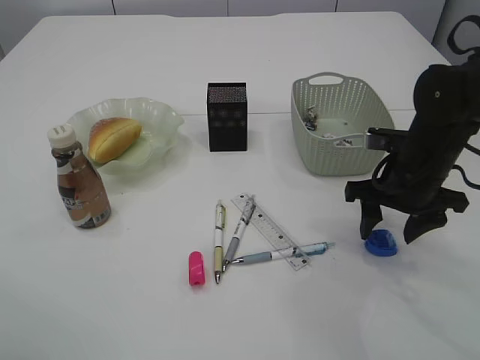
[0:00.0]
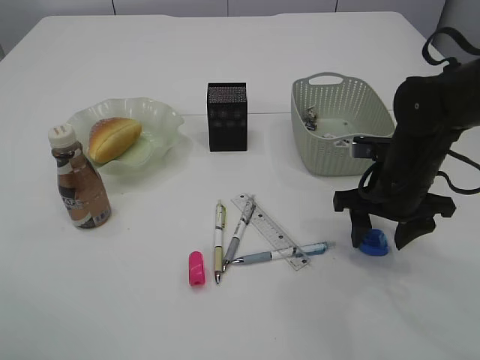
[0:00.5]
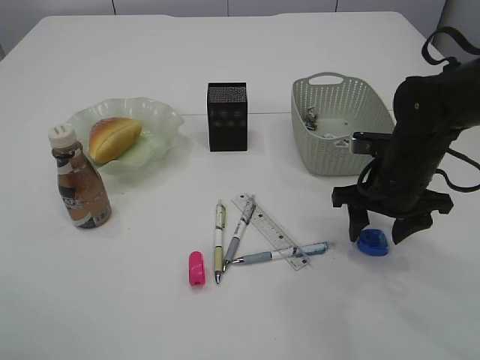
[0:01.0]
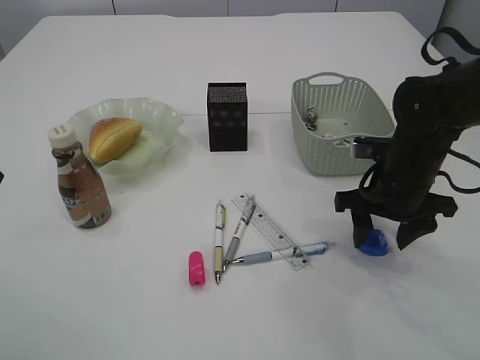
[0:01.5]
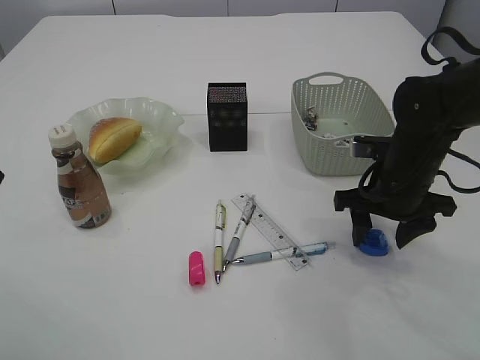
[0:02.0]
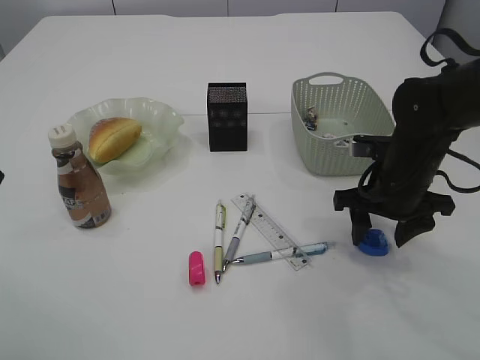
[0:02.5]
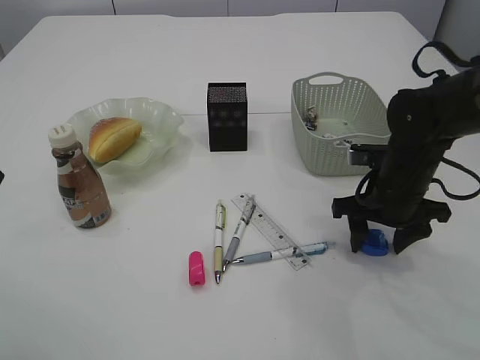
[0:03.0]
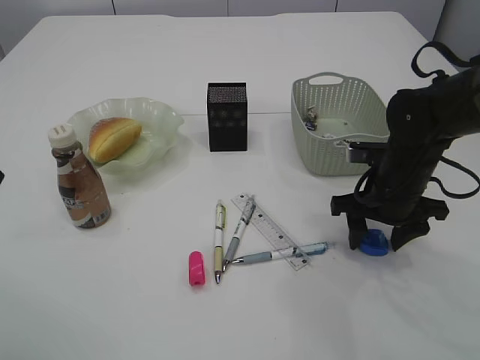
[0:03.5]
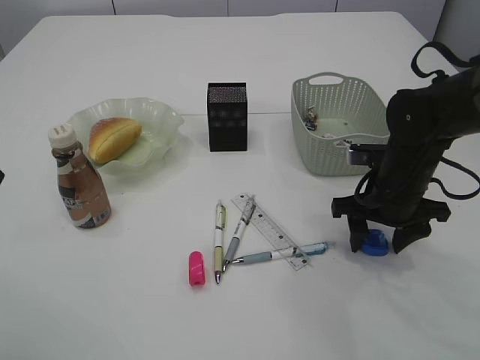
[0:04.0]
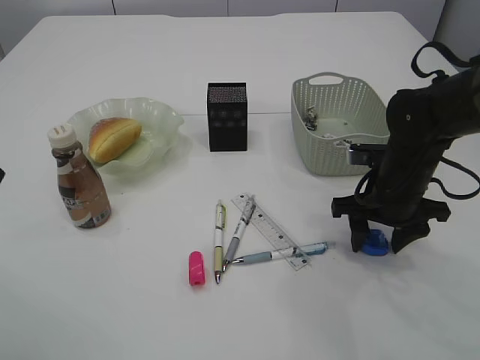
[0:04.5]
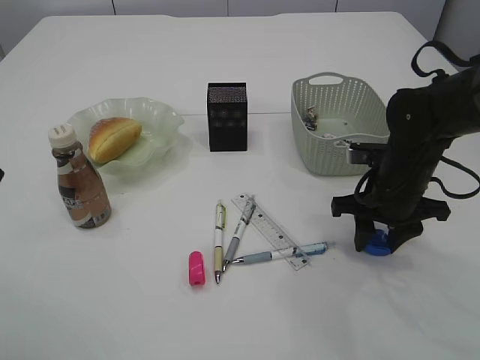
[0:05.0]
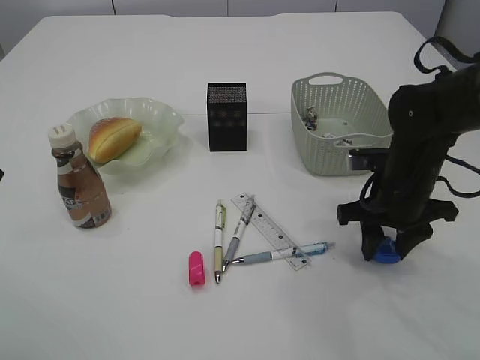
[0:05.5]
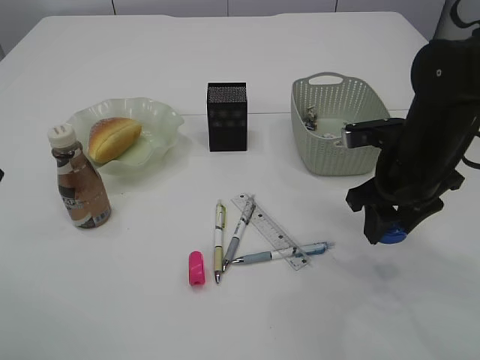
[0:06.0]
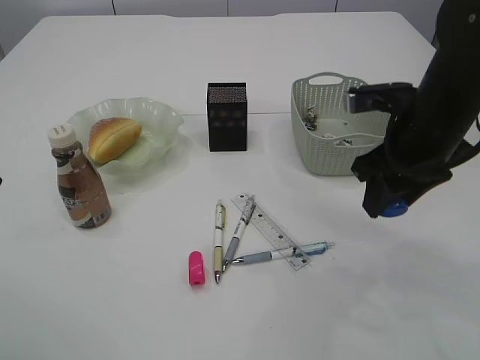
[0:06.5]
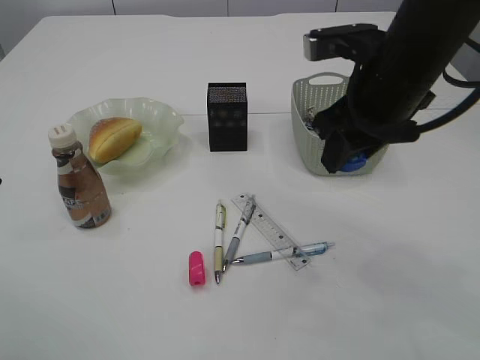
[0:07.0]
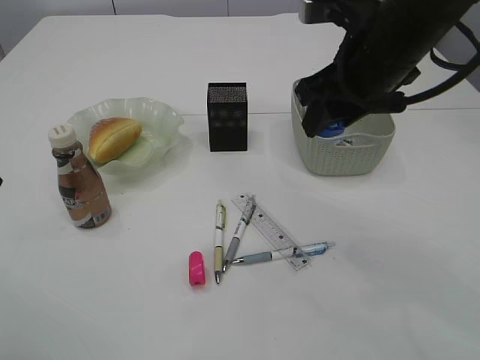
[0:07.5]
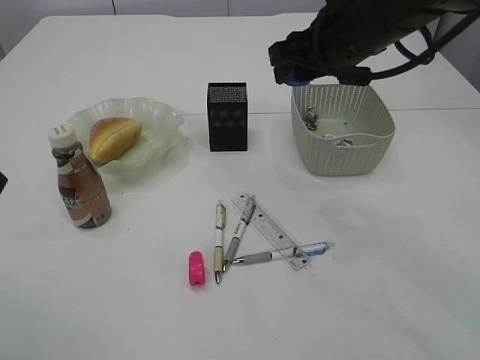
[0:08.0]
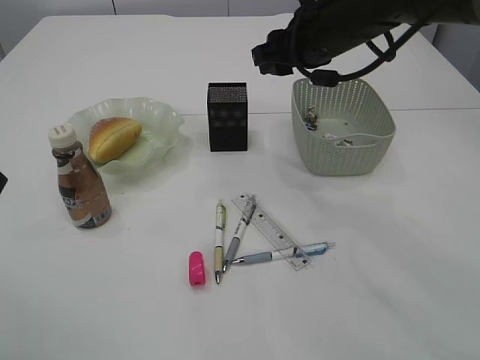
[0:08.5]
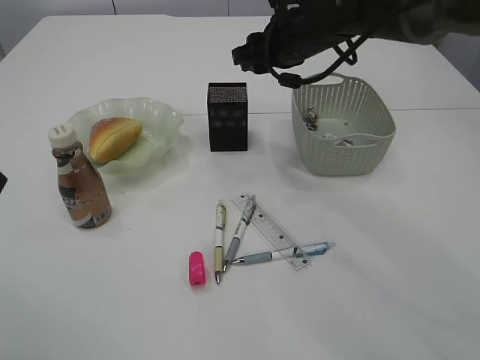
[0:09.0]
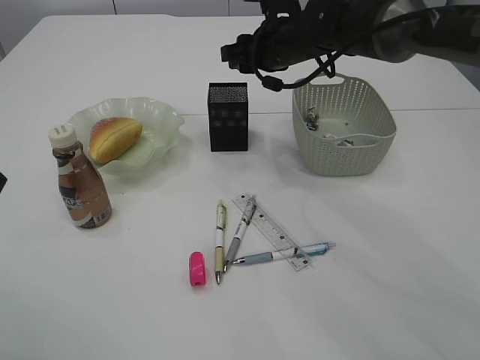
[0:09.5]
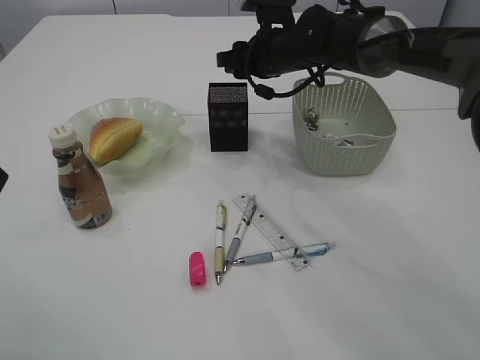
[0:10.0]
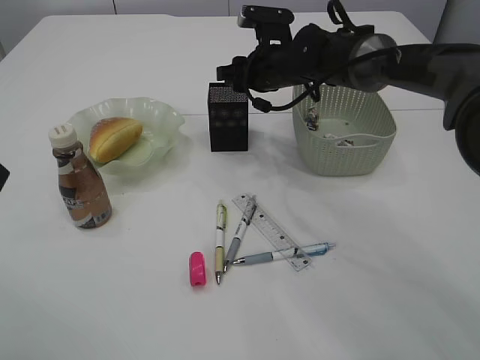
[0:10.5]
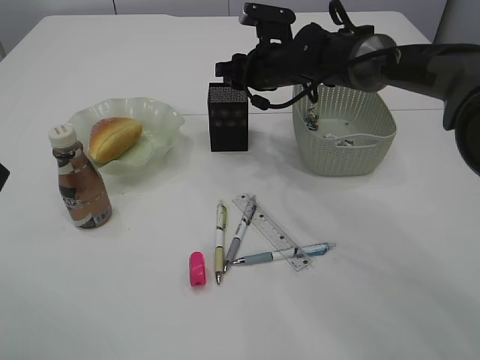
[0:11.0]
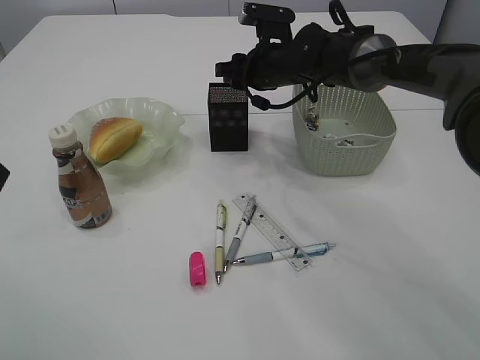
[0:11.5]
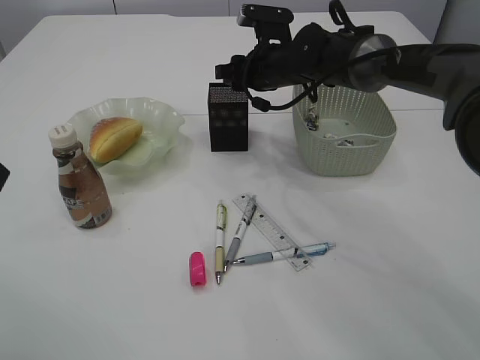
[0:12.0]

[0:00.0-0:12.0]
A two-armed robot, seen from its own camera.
Step, 0.0 to 6.0 s: Pick up the blue pencil sharpener.
0.0 to 4.0 s: There are only small adjustments of the grippers.
4.0 to 6.0 s: The right gripper goes roughly 5 cm upward.
6.0 to 8.0 s: The right gripper travels upward and to the left by about 15 cm.
8.0 to 10.0 s: The right gripper shifts roughly 15 cm forward and downward.
10.0 to 12.0 s: The grippers move only a little.

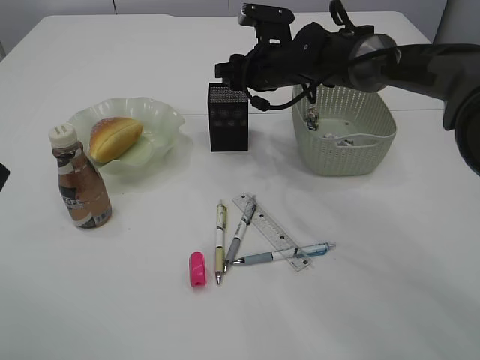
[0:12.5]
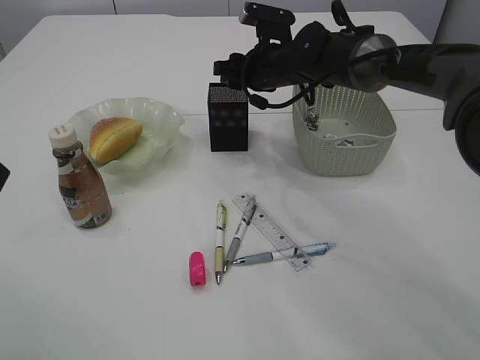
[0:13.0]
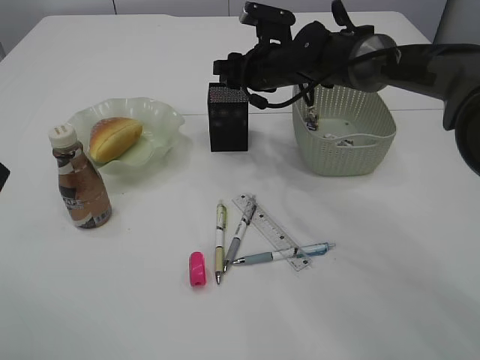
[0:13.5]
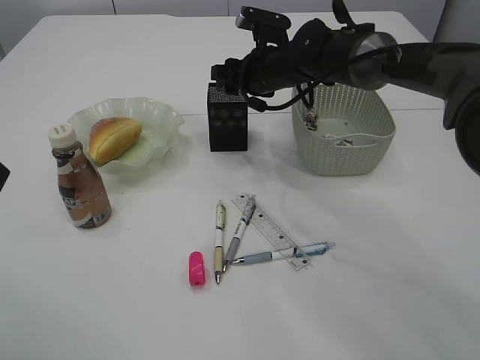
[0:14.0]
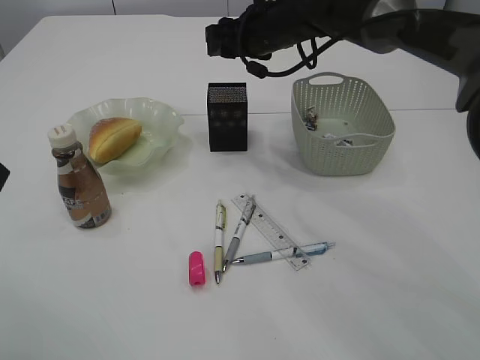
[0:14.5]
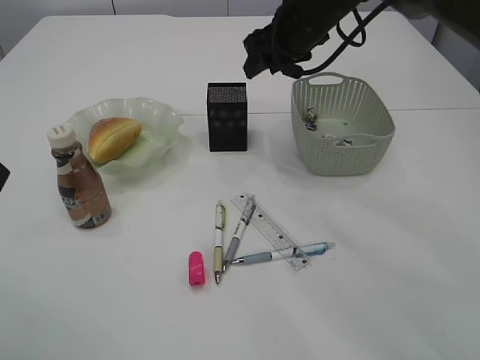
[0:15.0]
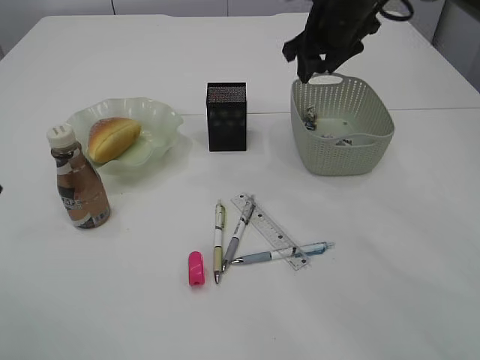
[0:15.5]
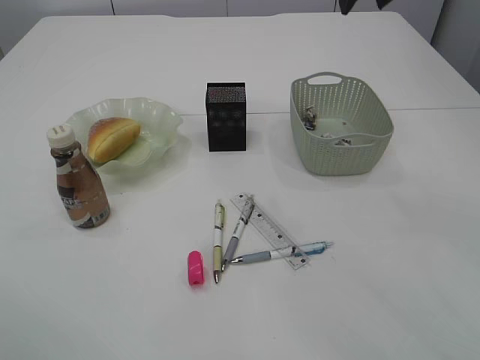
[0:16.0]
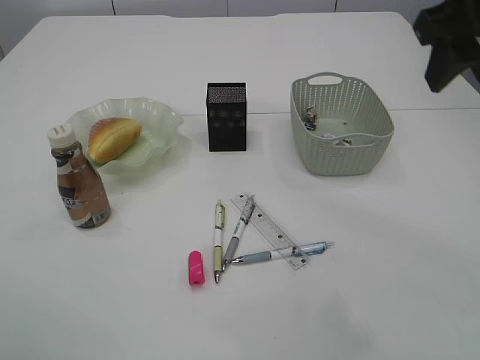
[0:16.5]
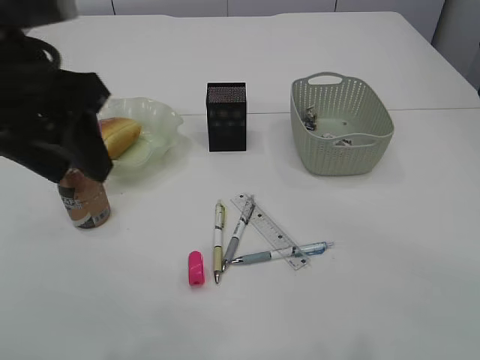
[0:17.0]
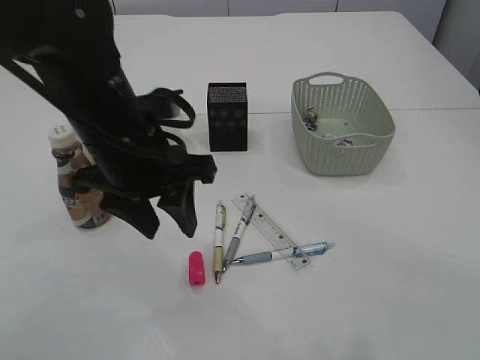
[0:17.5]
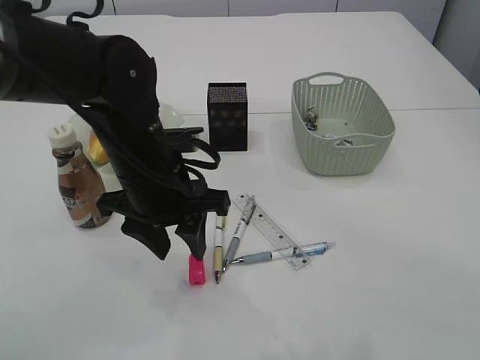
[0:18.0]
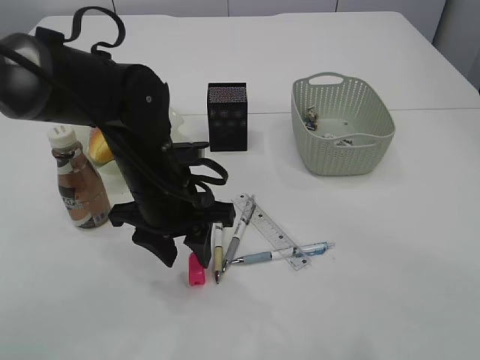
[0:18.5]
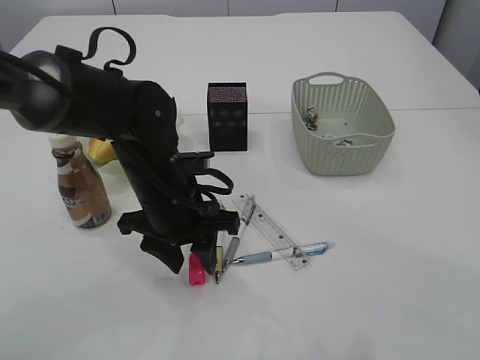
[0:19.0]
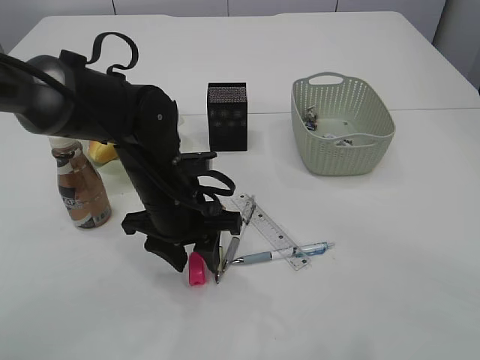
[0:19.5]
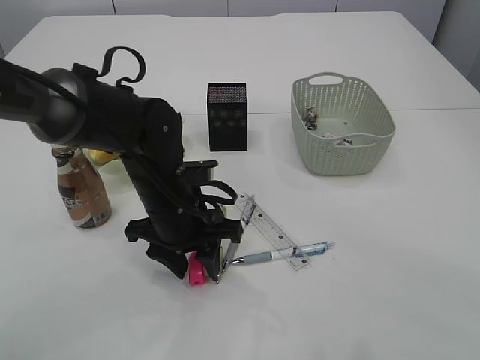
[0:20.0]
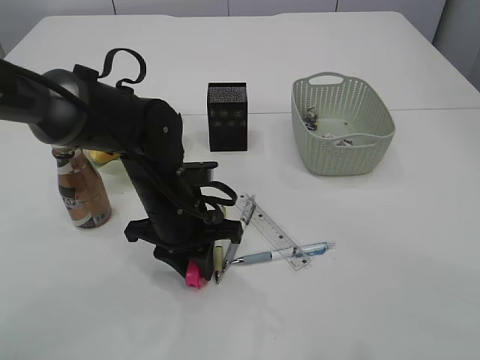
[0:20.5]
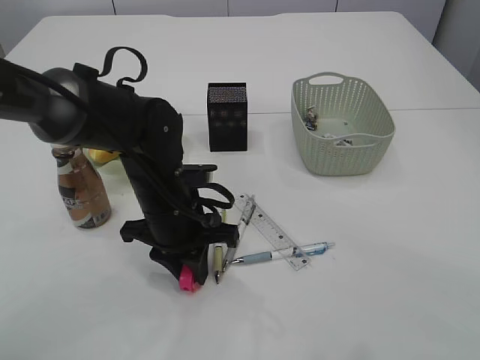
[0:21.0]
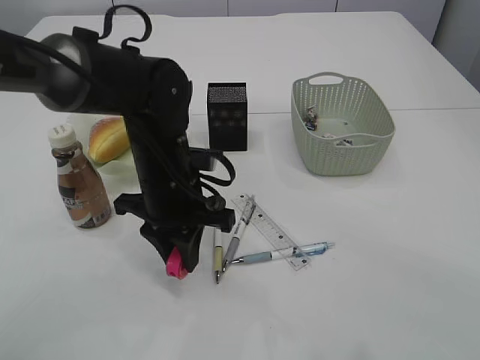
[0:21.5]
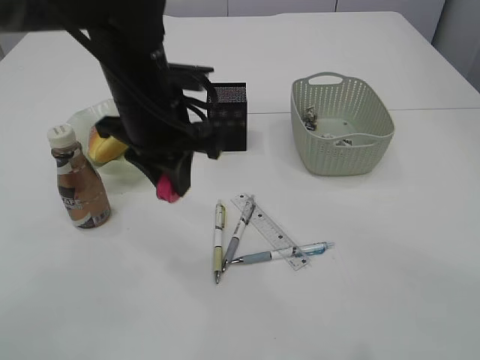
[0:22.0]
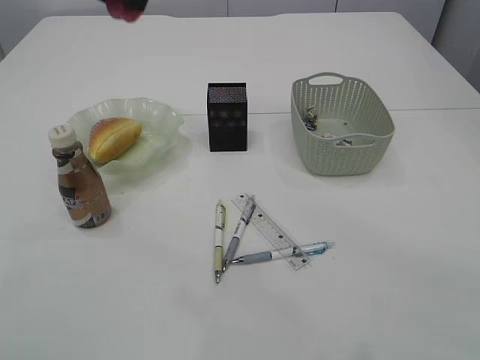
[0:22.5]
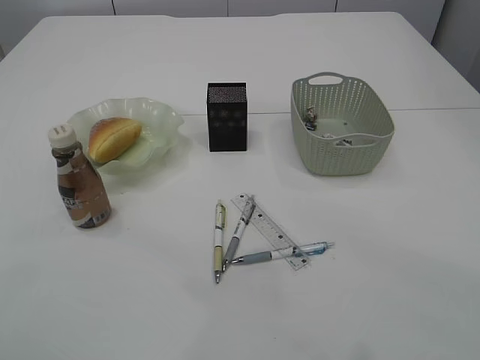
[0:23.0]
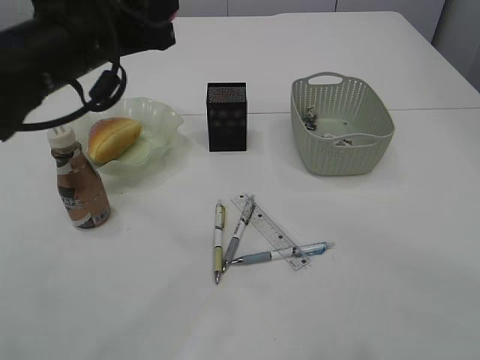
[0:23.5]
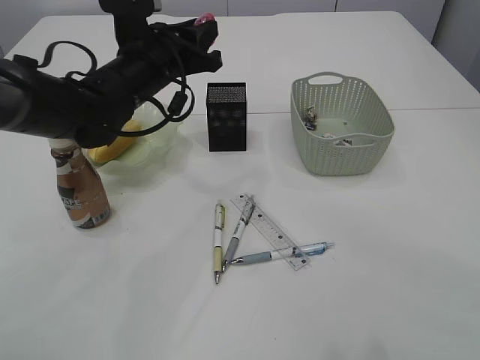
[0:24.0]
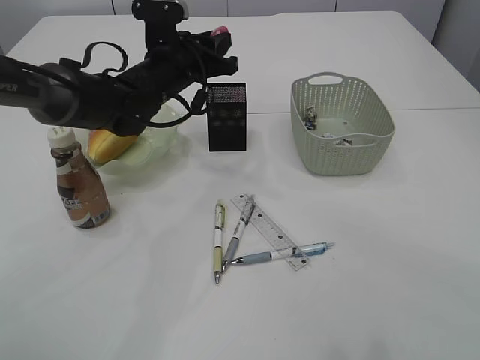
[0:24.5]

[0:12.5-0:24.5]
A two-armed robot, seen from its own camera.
Step, 14.5 to 21.5 s: Pick up the red pencil sharpener.
12.5 to 14.5 s: The right gripper shifts approximately 5 cm upward.
14.5 to 16.5 s: The right gripper is displaced backward, to the right and upward by some 30 cm.
16.5 to 18.5 s: The left gripper is displaced downward, to the right and forward by some 30 cm; the right gripper travels backward by roughly 5 cm.
18.5 to 20.5 s: The grippers stay close to where they were, moving slightly.
20.5 to 22.5 s: The left gripper heads upward, covering approximately 30 cm.
22.5 to 24.5 s: The left gripper heads downward and forward, covering approximately 25 cm.

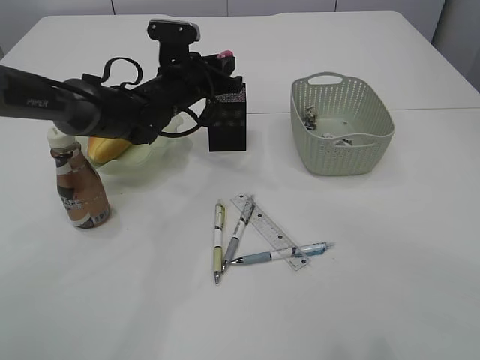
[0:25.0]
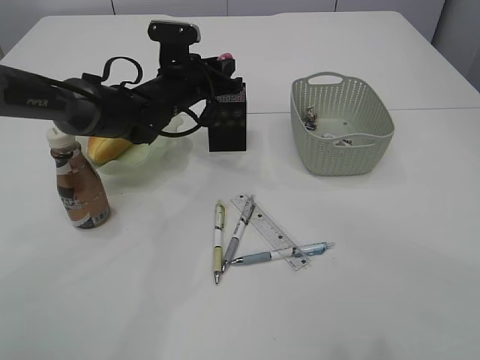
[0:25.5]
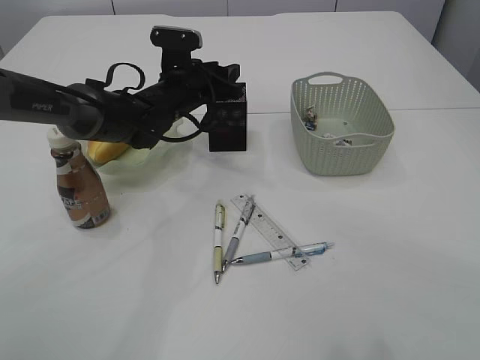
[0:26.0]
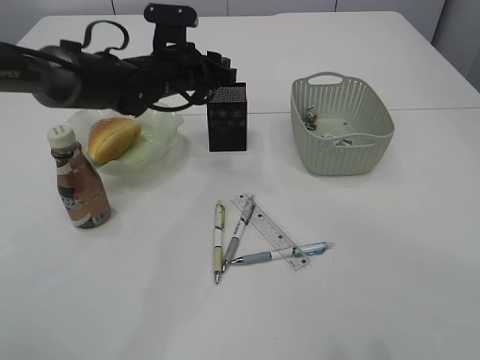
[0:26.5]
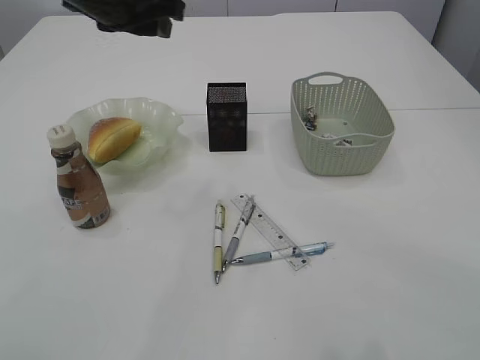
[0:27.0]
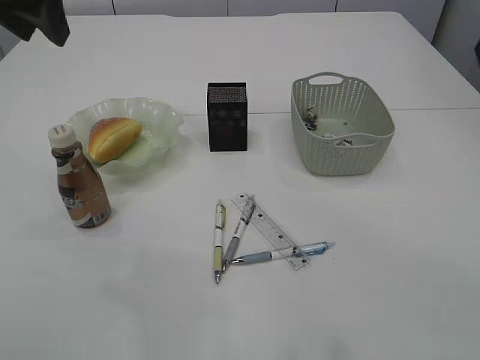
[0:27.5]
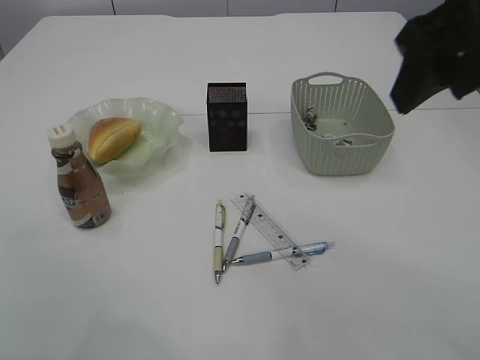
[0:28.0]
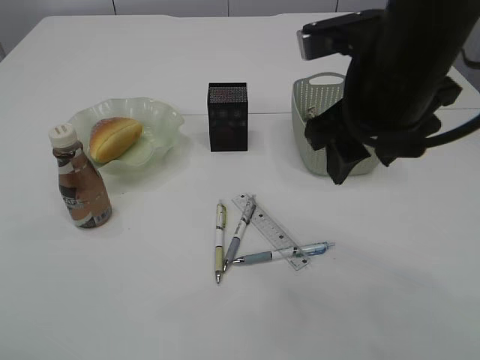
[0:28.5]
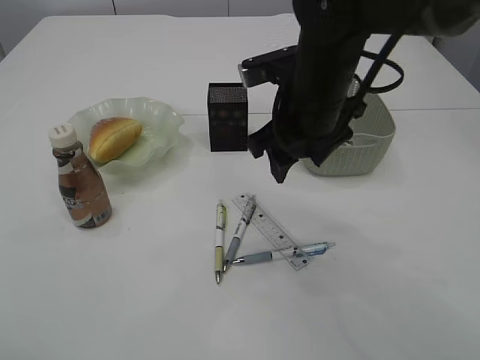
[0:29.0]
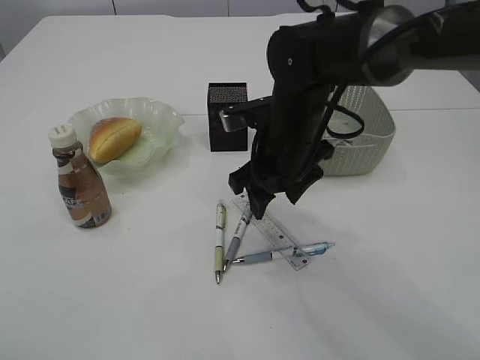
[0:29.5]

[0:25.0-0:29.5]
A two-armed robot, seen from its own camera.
25.0 to 27.0 s: The left gripper moves upward and backward, some 15 cm.
27.0 to 29.5 s: The left gripper is displaced backward and to the left by roughly 30 cm. The right gripper shifts roughly 30 cm downward, to the left and forward.
